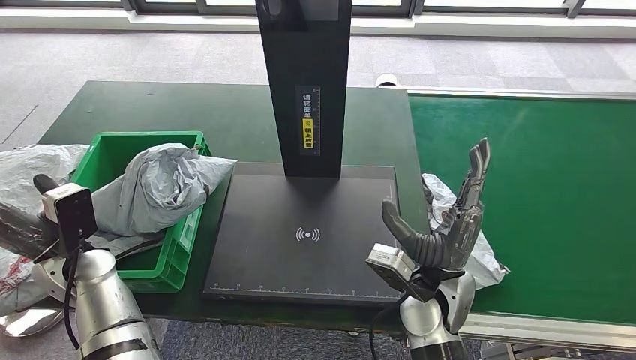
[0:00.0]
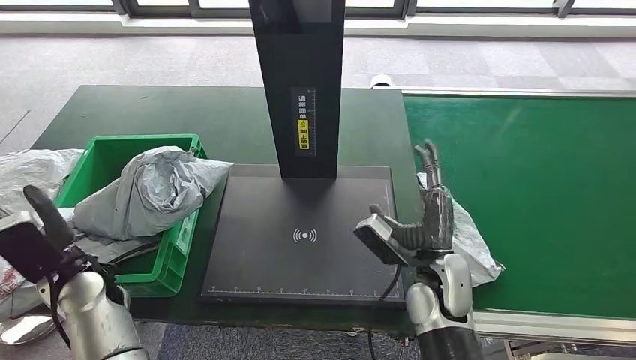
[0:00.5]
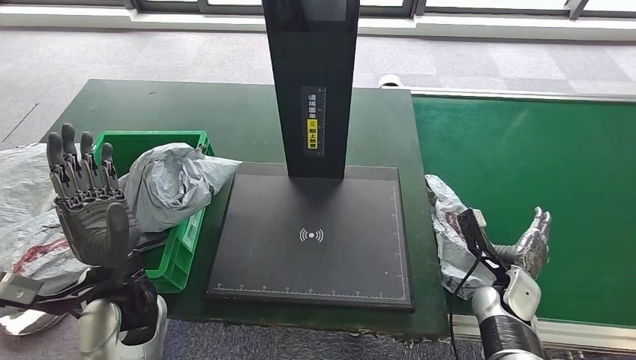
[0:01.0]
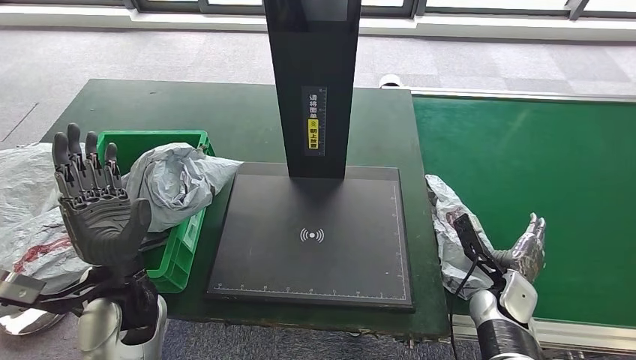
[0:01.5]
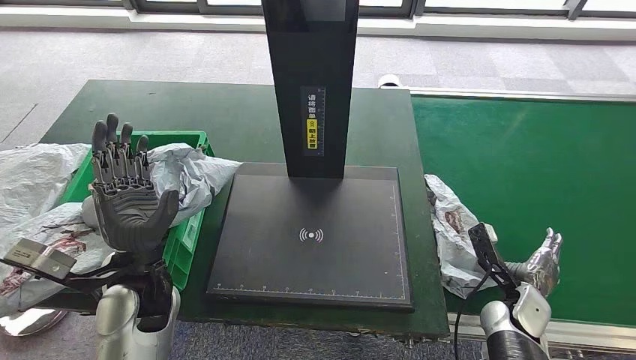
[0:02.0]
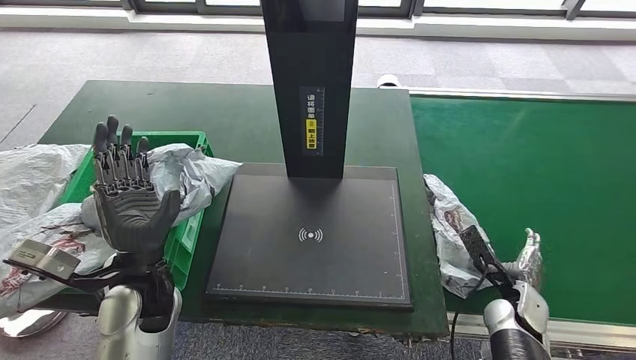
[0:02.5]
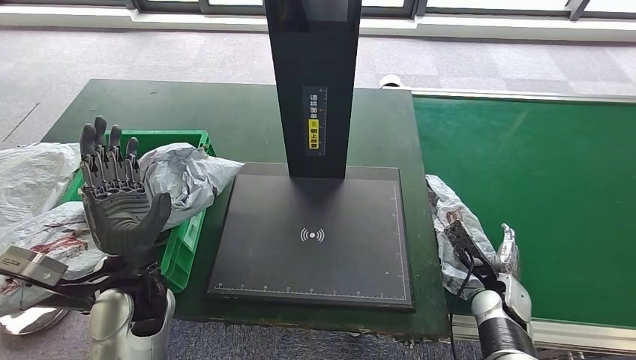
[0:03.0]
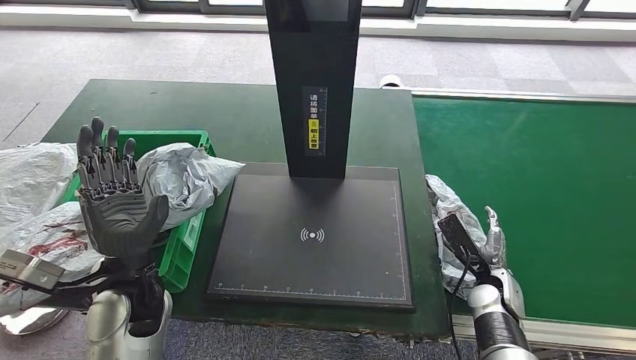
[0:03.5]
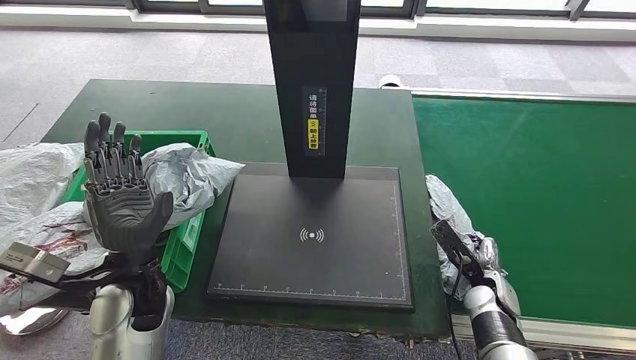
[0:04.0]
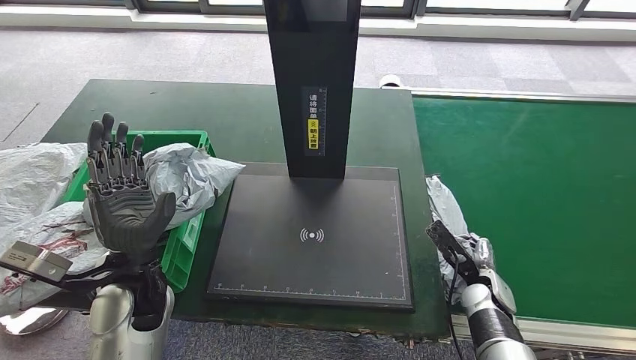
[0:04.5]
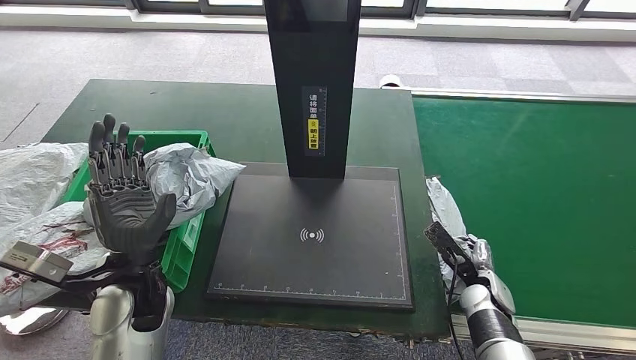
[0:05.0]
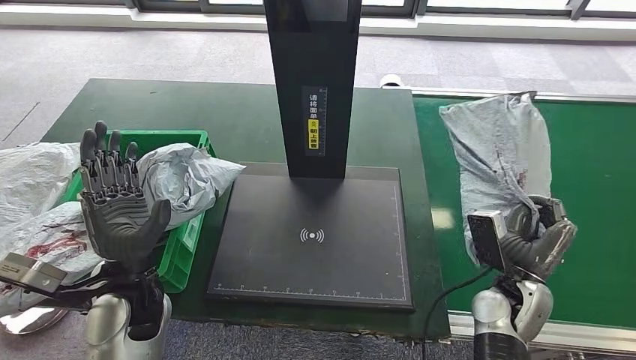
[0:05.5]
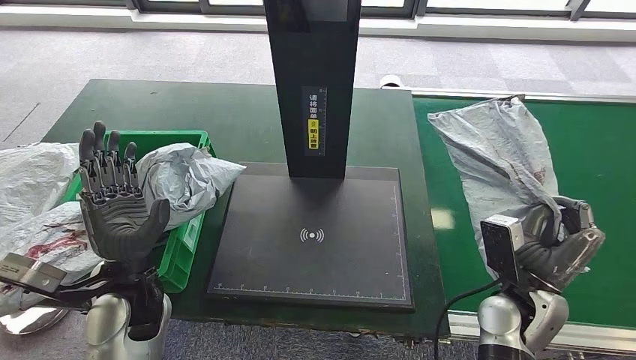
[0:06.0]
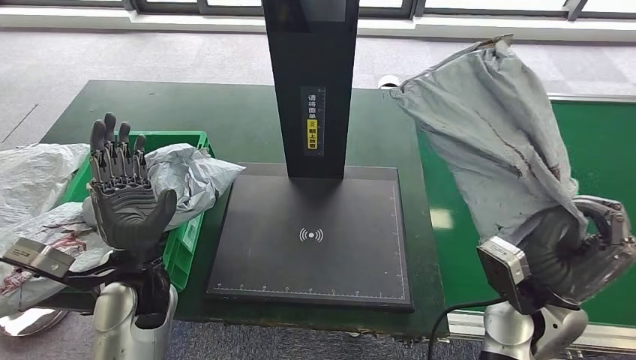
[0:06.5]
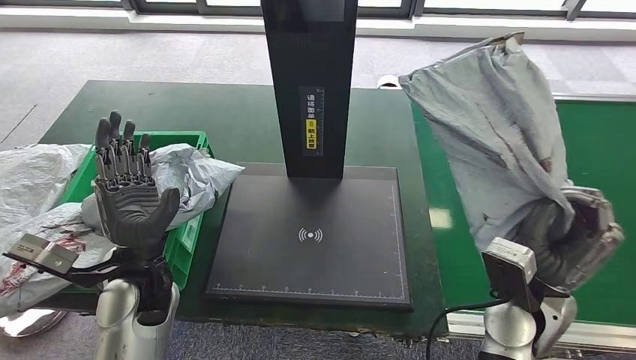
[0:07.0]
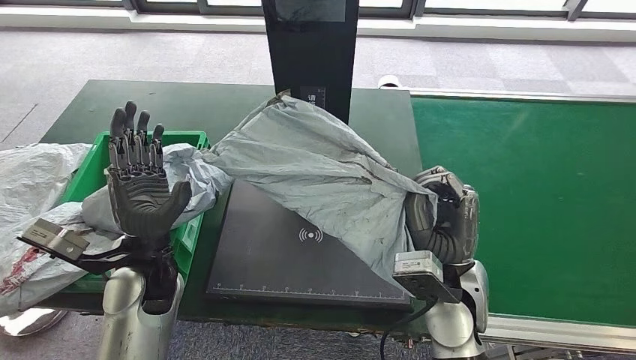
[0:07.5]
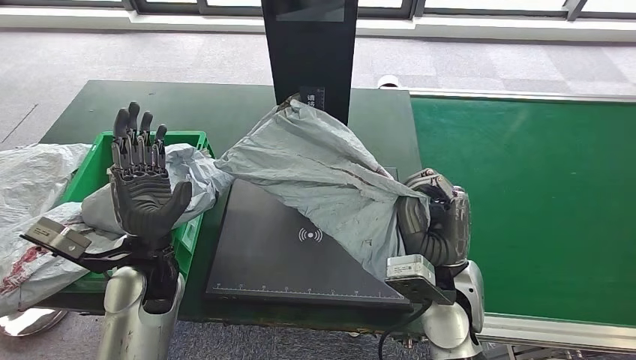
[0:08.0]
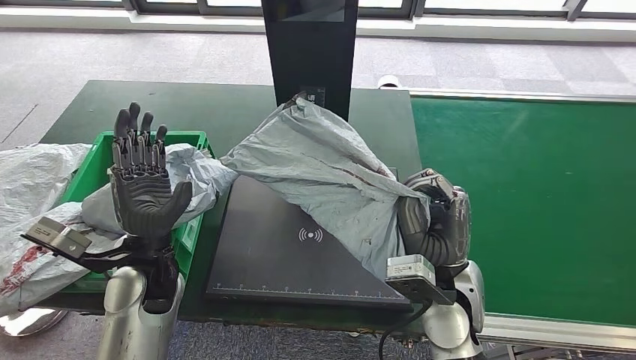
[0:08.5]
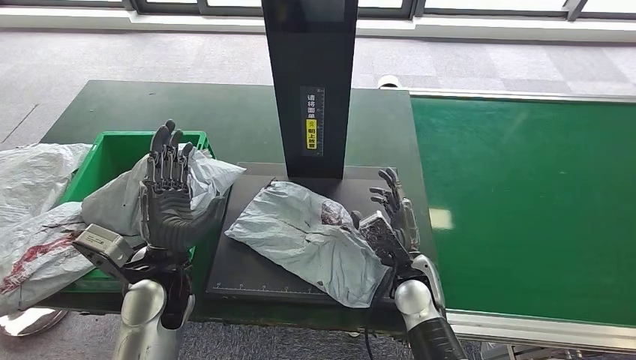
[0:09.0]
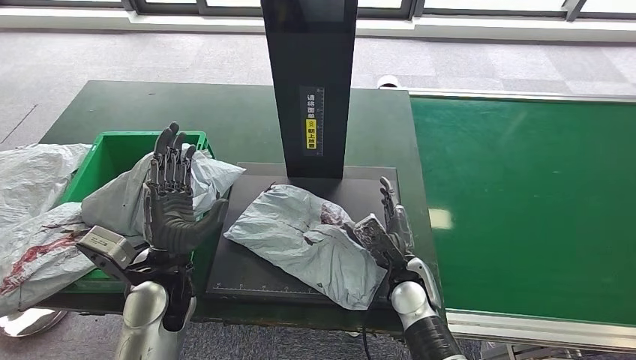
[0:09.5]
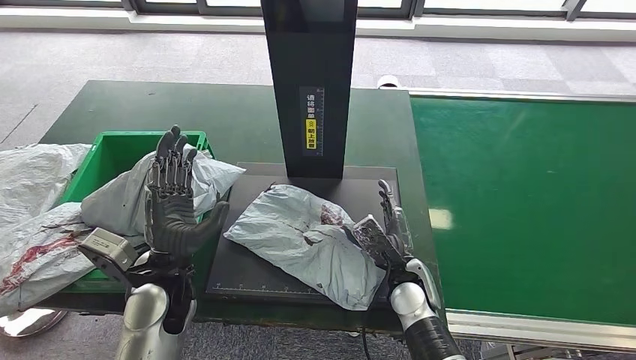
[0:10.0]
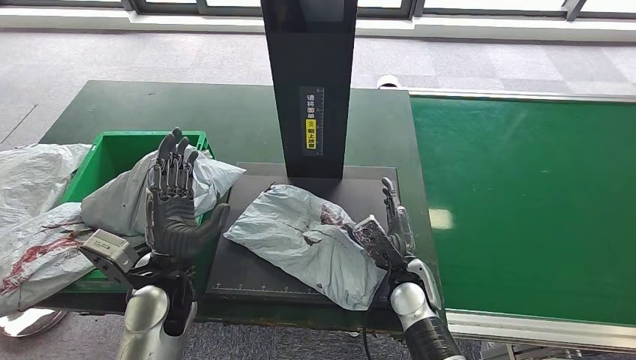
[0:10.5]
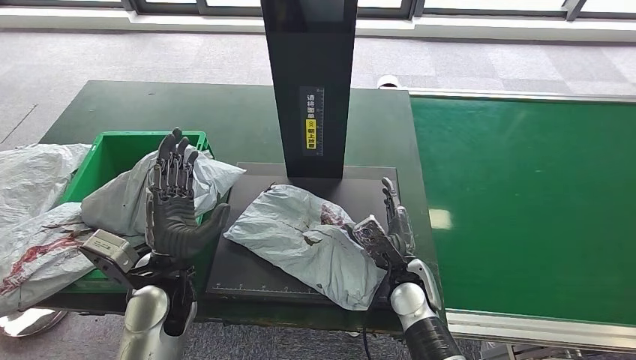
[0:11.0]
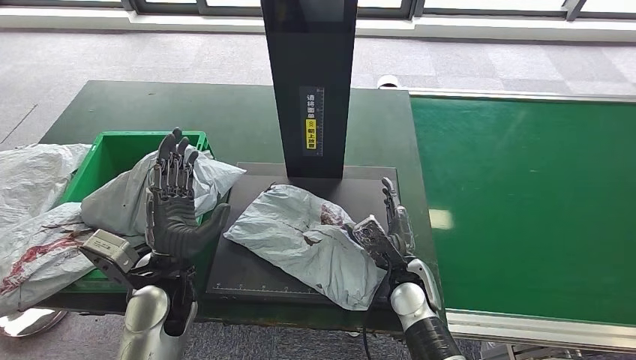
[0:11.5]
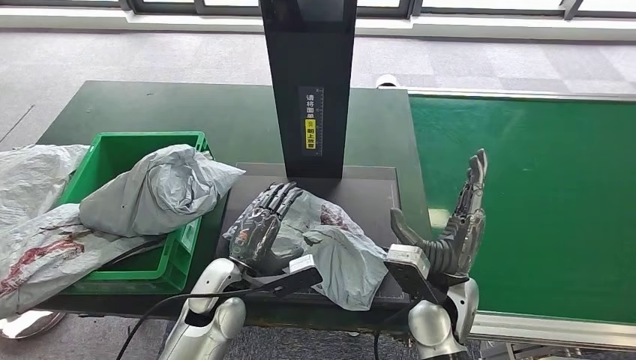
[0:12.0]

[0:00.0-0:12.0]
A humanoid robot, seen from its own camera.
Step, 0:00.0 to 0:06.0: Pick up the parcel from the conveyor belt.
Step, 0:07.0 to 0:09.0: Place the parcel onto the inbound machine.
0:04.0 to 0:06.0: The right hand shifts roughly 10 cm upward.
0:10.0 to 0:12.0: The right hand is displaced upward by approximately 10 cm. Meanwhile the left hand moves downward and to the right, some 10 cm.

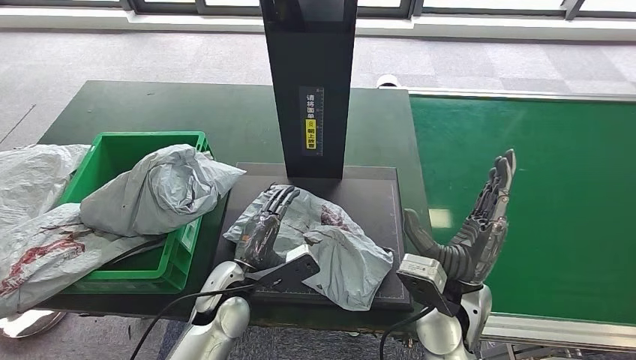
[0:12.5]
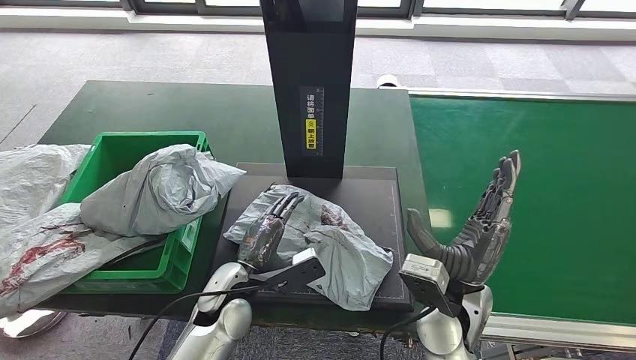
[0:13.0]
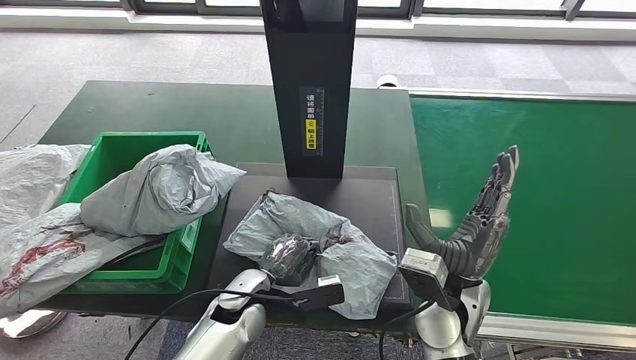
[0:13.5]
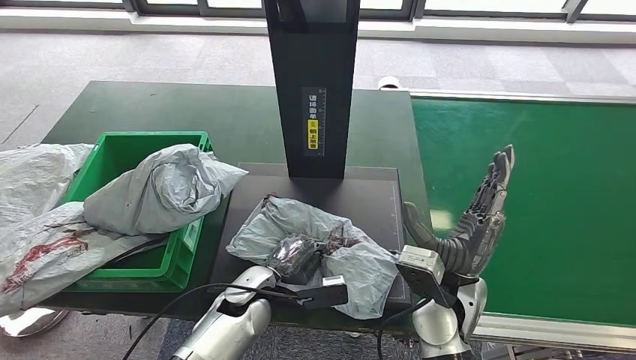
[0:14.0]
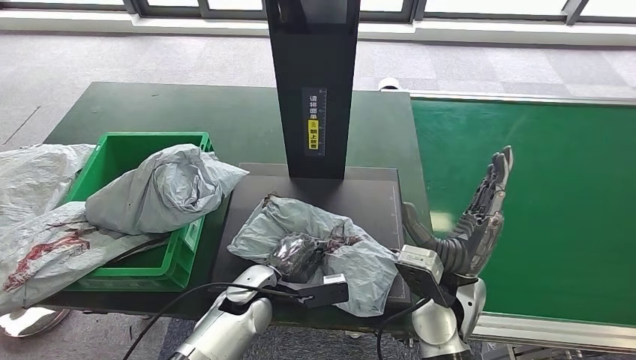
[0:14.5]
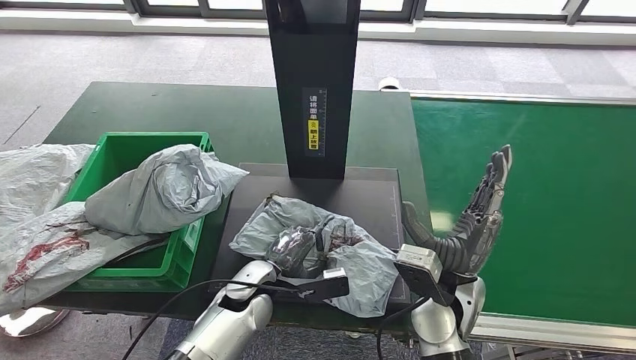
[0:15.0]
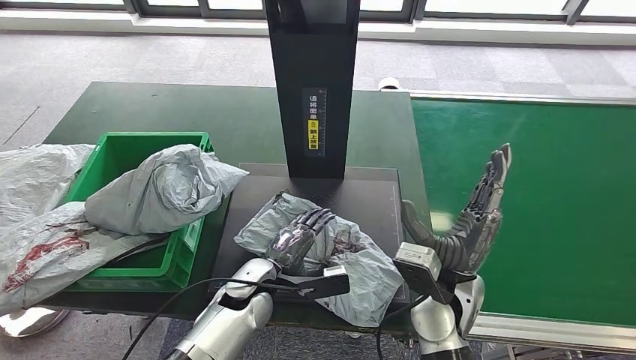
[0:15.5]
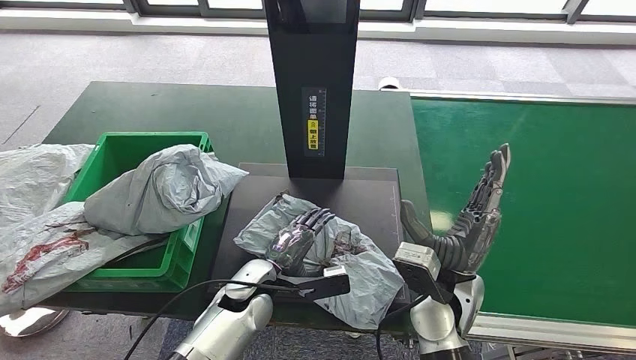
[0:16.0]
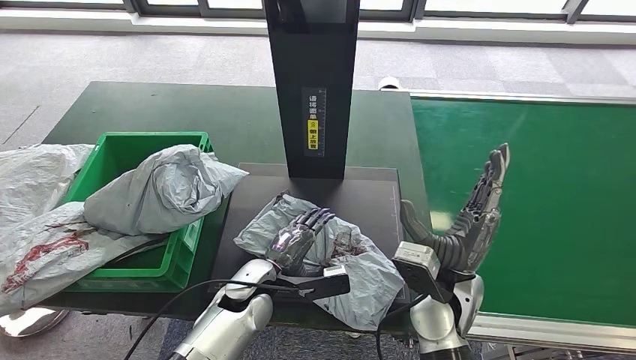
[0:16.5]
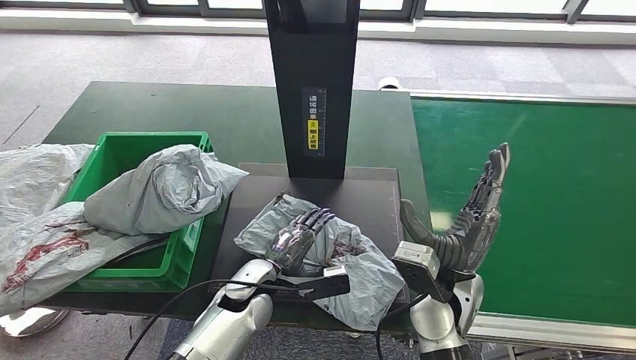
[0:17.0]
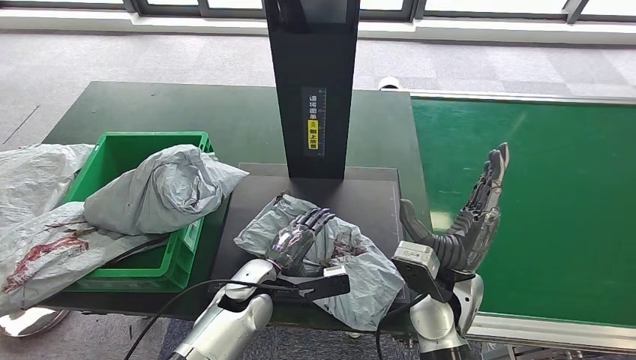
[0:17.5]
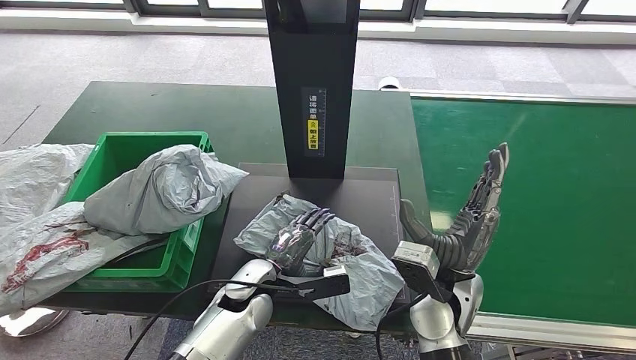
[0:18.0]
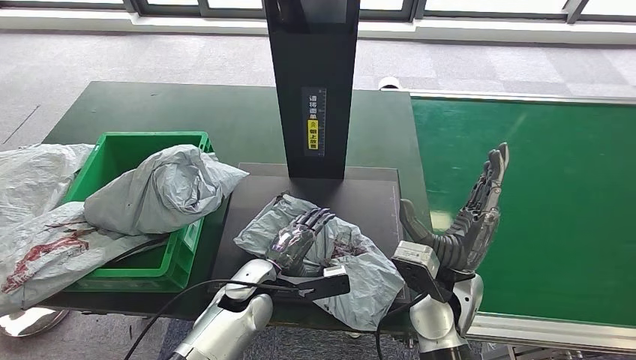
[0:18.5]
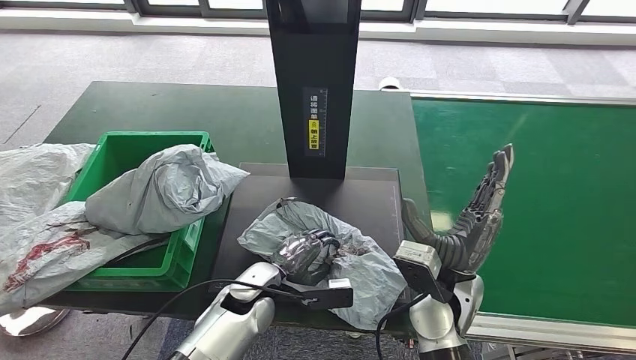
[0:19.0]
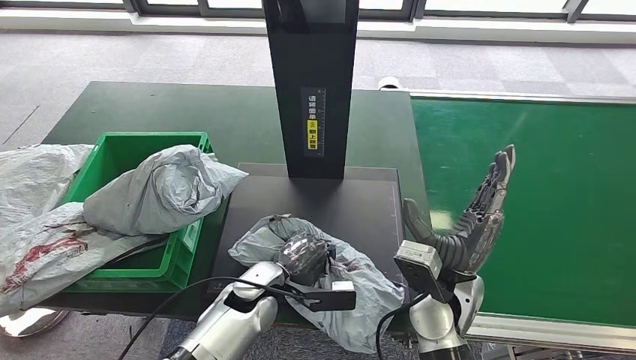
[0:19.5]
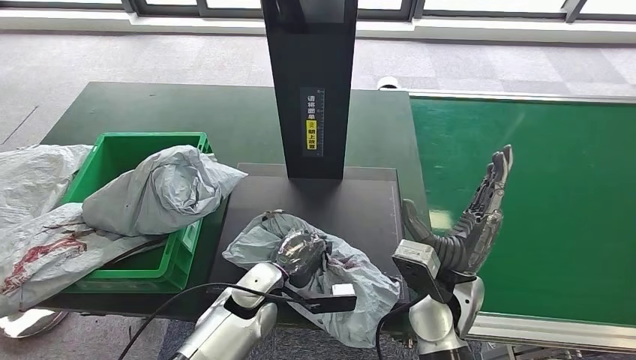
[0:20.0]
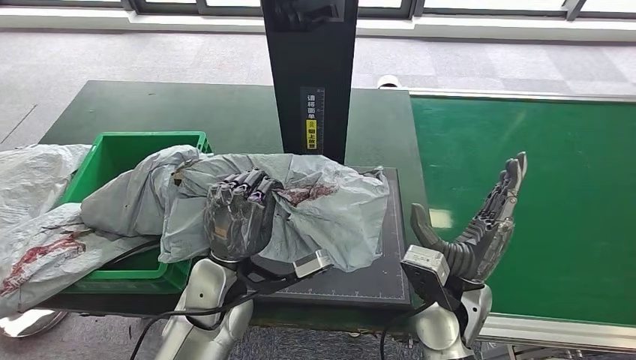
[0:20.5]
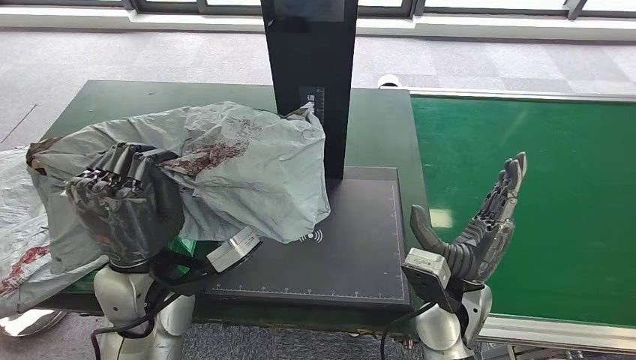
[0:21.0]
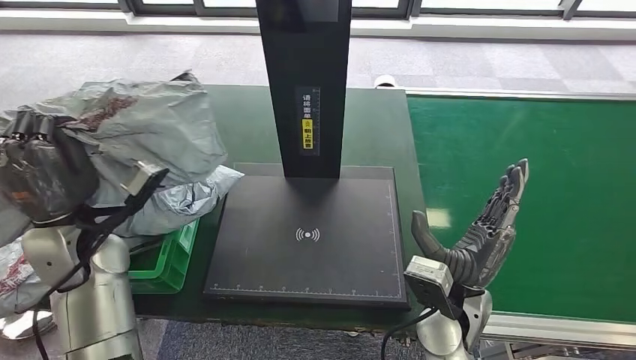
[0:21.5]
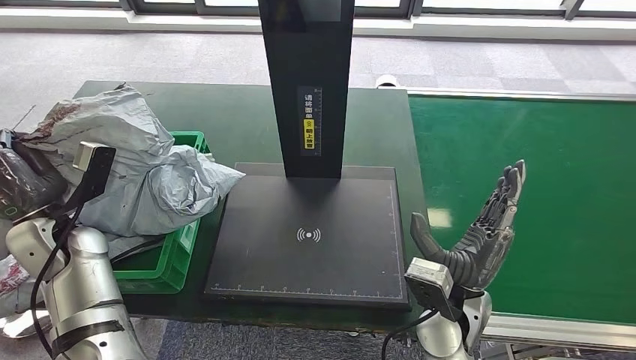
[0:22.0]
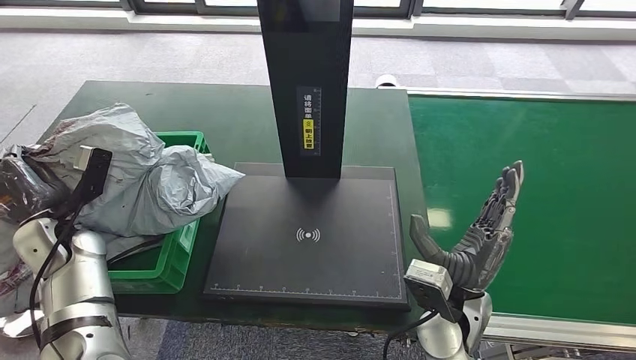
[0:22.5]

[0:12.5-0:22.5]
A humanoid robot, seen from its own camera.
Step, 0:12.5 to 0:20.5: Pick up the parcel from the inbound machine.
0:14.5 to 0:16.5: The hands stay close to where they were, moving slightly.
0:16.5 to 0:18.5: Both hands stay put.
